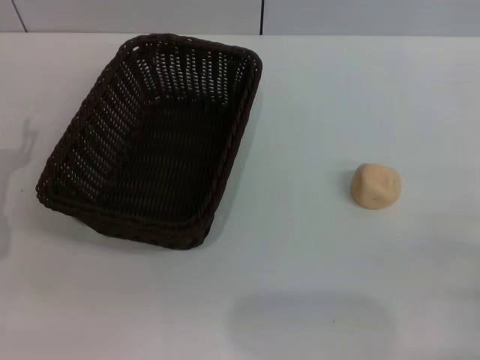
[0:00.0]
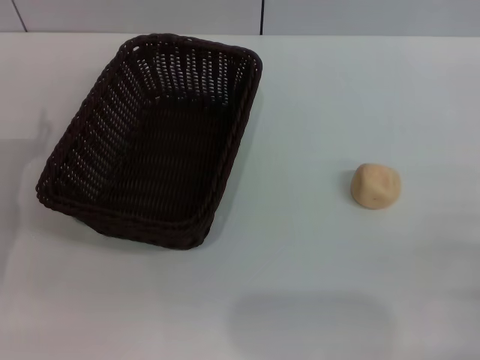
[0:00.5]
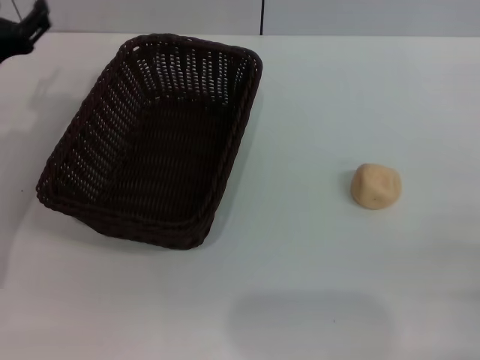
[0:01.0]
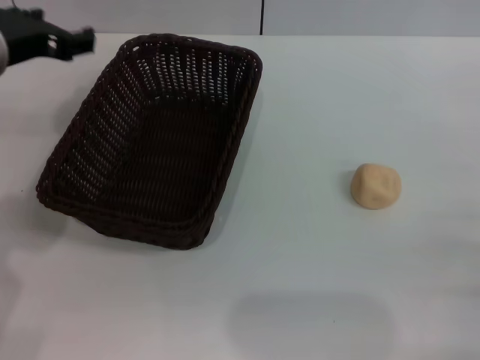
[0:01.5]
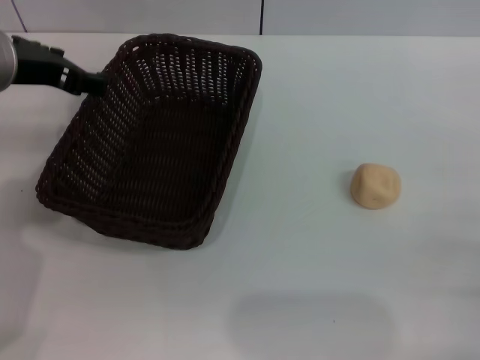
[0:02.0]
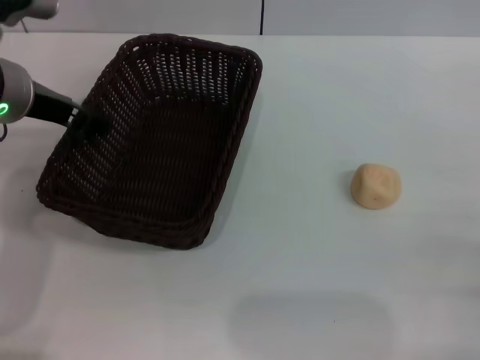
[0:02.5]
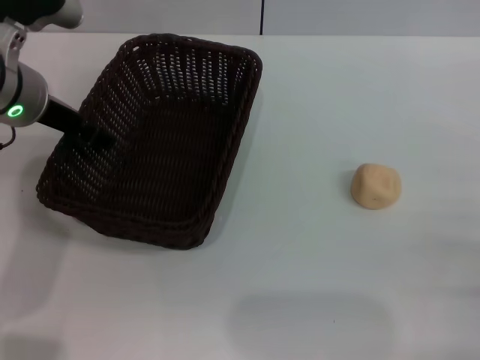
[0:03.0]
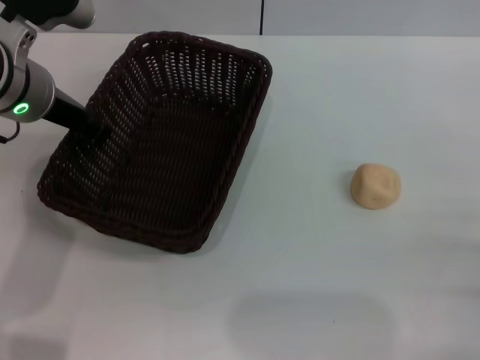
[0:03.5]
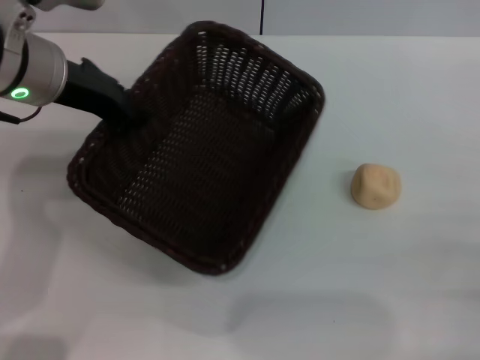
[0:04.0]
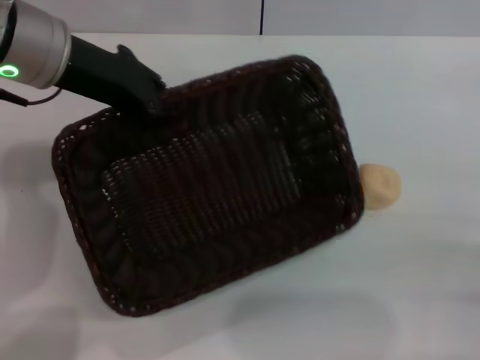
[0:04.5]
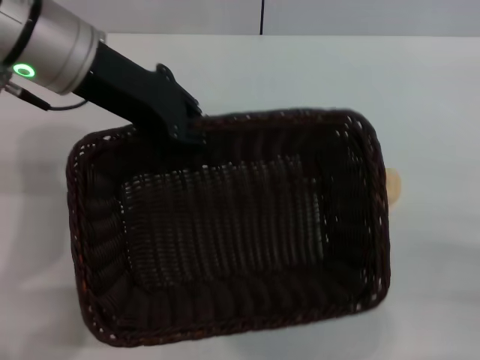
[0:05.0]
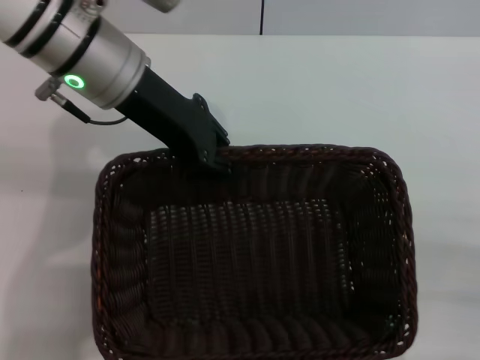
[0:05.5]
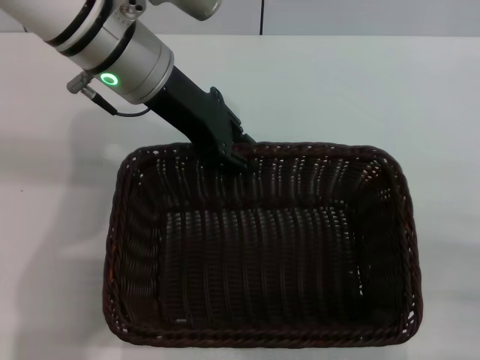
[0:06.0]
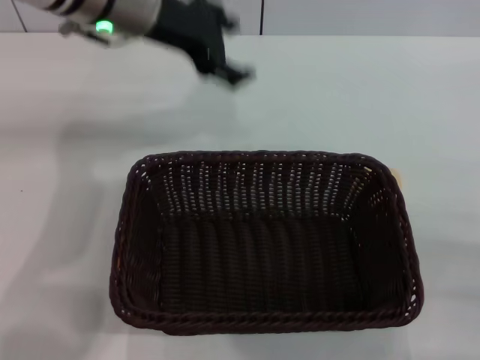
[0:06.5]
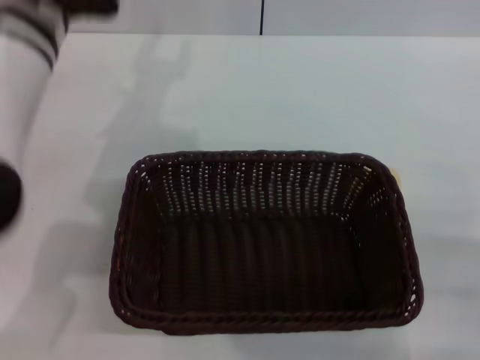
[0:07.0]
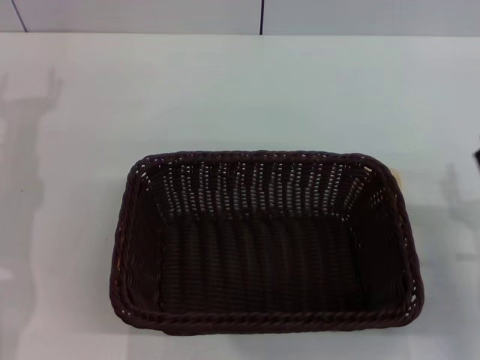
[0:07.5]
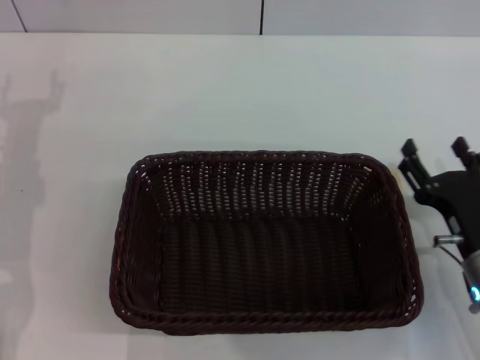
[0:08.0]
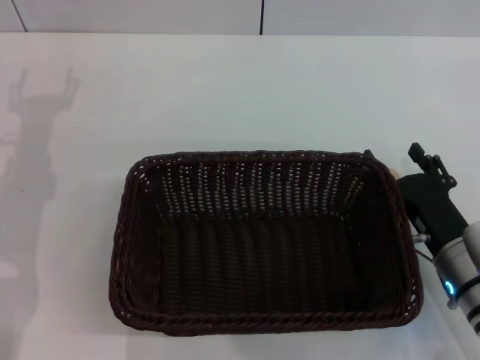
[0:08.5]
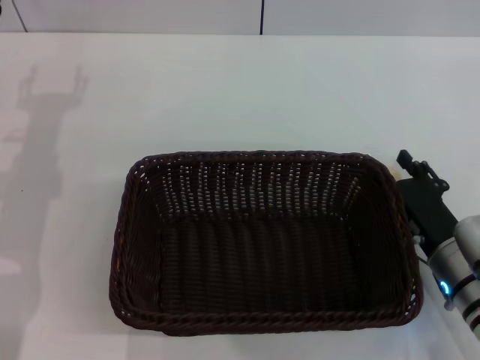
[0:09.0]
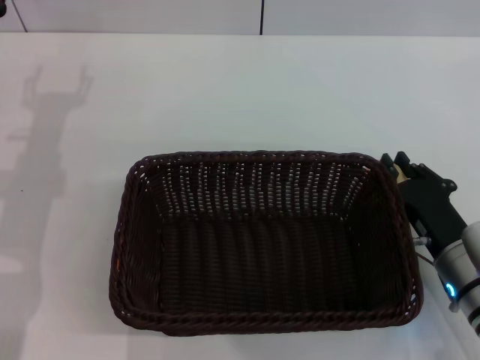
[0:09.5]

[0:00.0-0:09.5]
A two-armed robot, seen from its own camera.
Step, 0:00.0 to 0:06.0: Move the basket to the center of view with the left gripper.
0:00.0 to 0:02.0: The left gripper shifts roughly 20 cm upward, forward and to the right.
0:02.0 to 0:04.0: The left gripper closes.
0:04.0 to 0:05.5: The left gripper heads to the right, covering roughly 5 cm.
0:05.5 to 0:07.5: The left gripper goes about 20 cm to the left and downward, and opens its fingers; the right gripper goes about 5 cm forward.
0:07.5 to 0:09.5: The right gripper shifts by approximately 5 cm, and closes up.

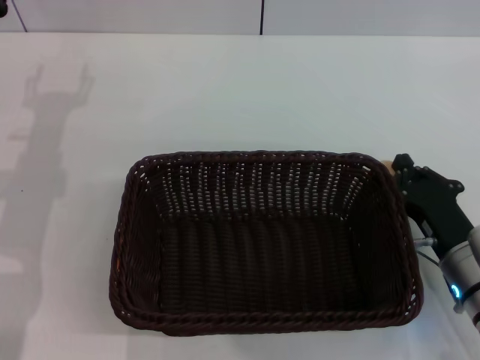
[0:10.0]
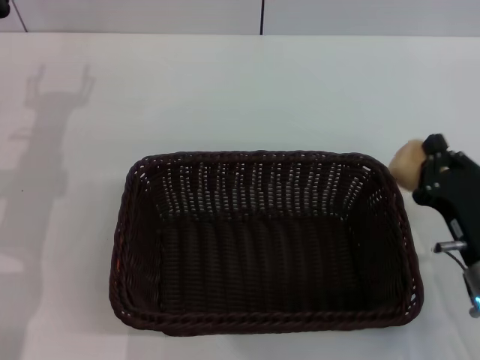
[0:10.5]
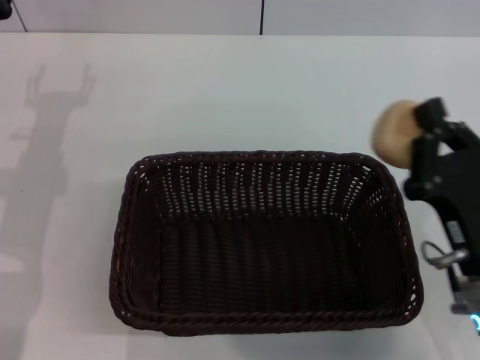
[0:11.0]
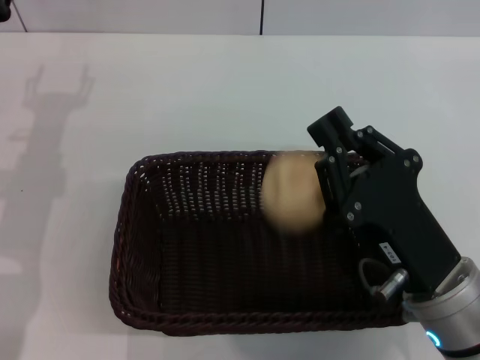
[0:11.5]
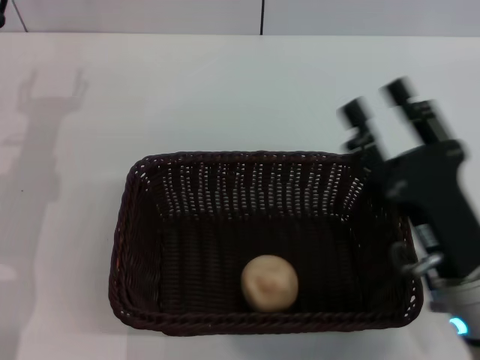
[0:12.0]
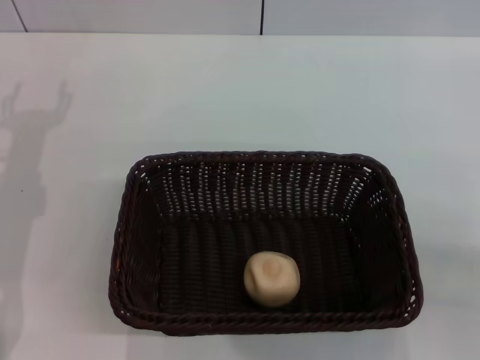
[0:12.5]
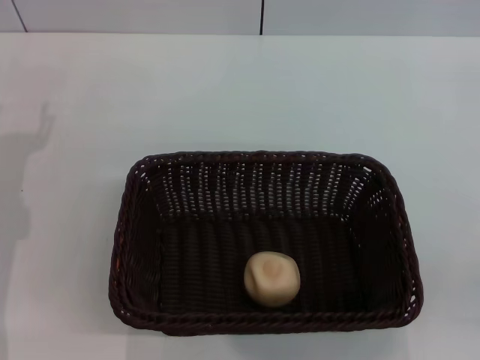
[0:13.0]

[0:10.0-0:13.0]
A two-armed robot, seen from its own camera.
Step, 0:11.0 to 0:11.5: Place the egg yolk pastry into the basket with the right gripper.
0:10.0 to 0:11.5: The right gripper is displaced upward, to the left and backward by approximately 10 cm.
0:11.5 to 0:13.0: The left gripper moves backward, some 5 cm; the right gripper travels to the right by approximately 15 cm, and opens its fingers.

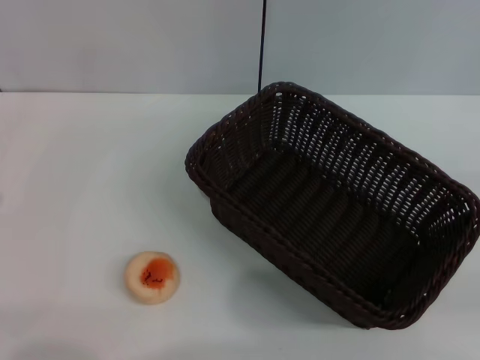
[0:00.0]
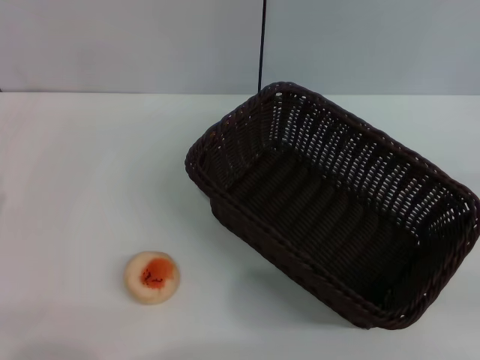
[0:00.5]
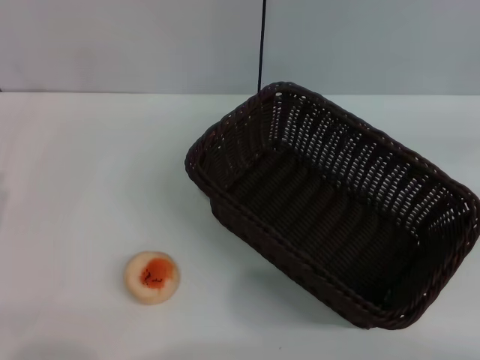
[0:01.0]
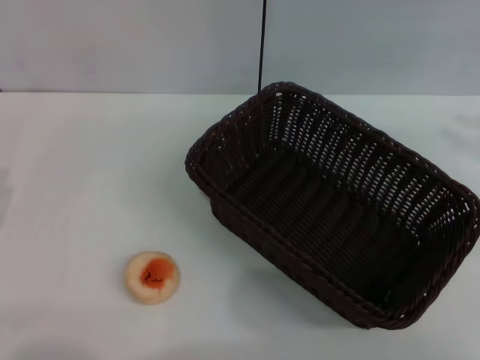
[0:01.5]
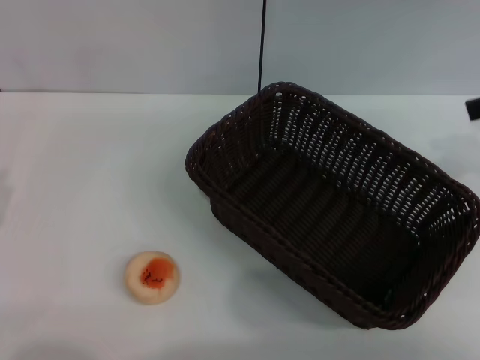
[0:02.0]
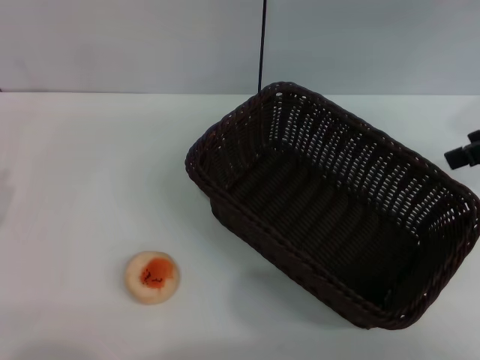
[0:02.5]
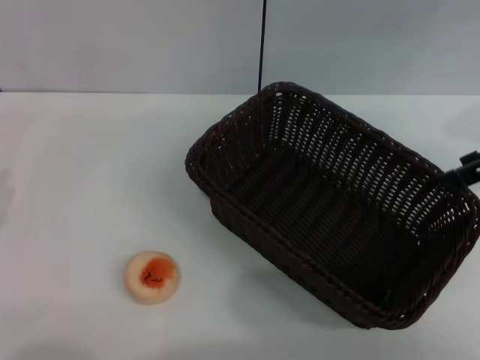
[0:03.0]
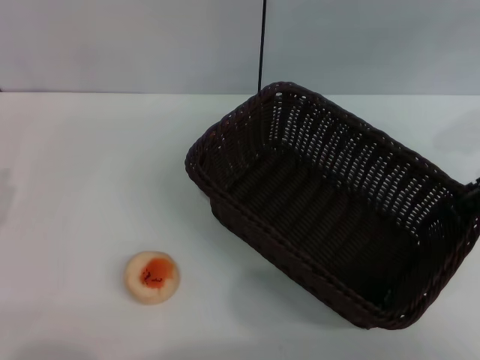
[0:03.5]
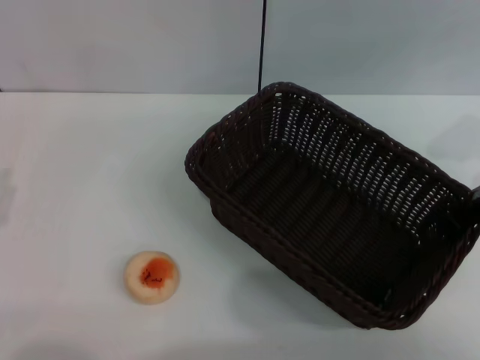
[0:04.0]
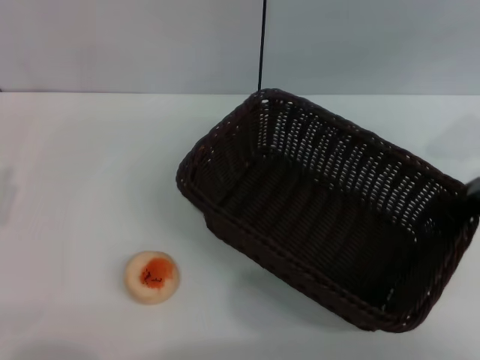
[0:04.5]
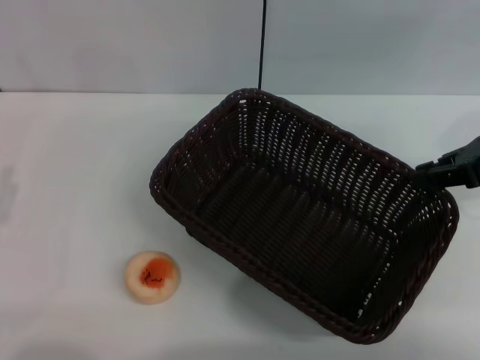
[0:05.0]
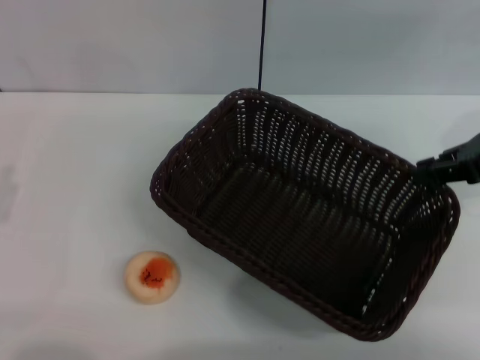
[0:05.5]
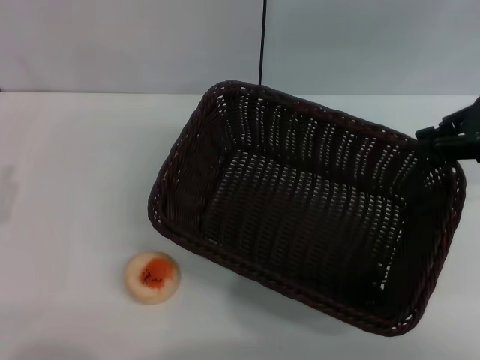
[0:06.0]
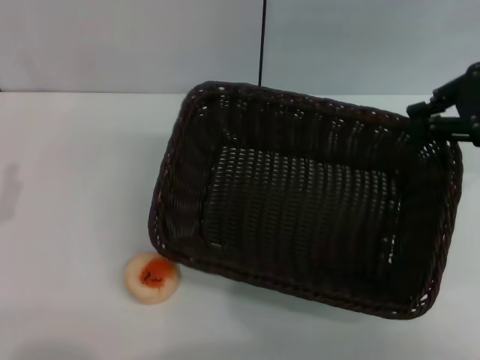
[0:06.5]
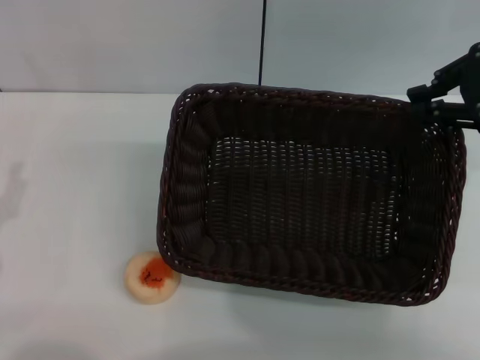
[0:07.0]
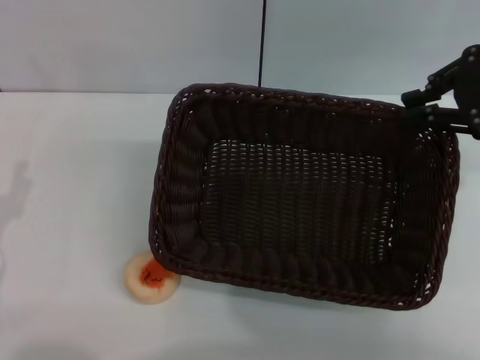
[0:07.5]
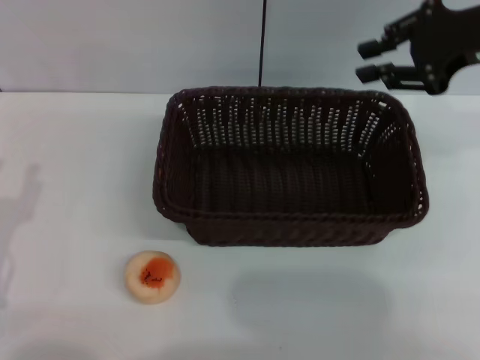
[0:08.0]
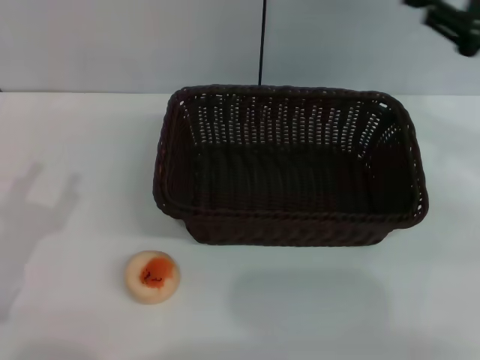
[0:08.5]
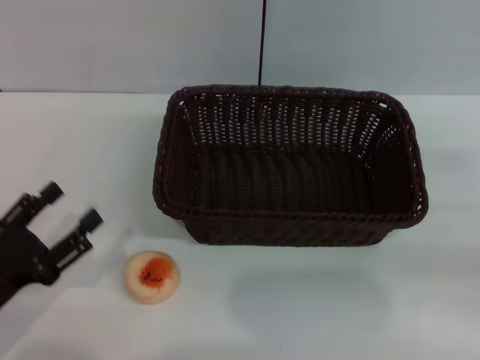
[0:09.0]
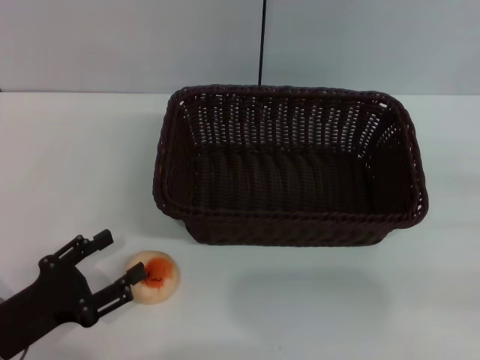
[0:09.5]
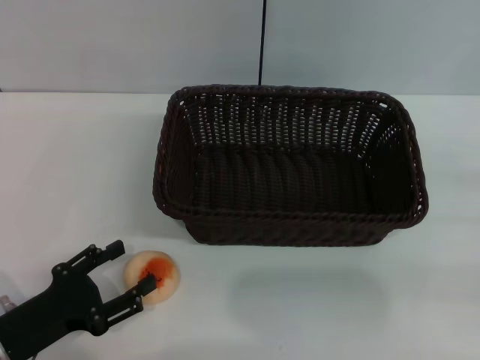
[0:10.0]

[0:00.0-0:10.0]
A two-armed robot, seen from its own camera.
Step, 0:00.0 to 0:08.0: Move the basket to the center of view with the right gripper.
0:00.0 to 0:02.0: The right gripper goes roughly 25 cm upward, forward and to the left, and opens.
0:04.0 to 0:06.0: The right gripper closes its fingers.
0:06.0 to 0:08.0: The right gripper shifts by approximately 5 cm.
0:08.0 to 0:10.0: The left gripper goes about 5 cm downward, while the right gripper moves downward, to the right and backward, some 30 cm.

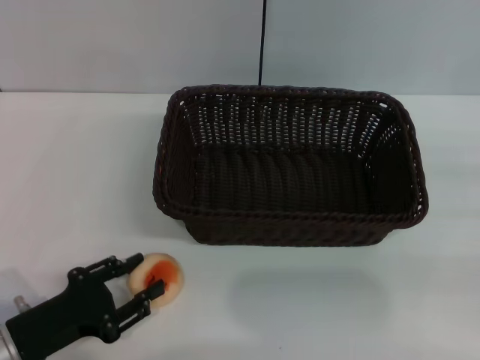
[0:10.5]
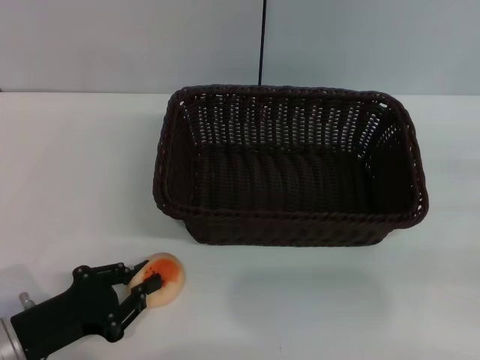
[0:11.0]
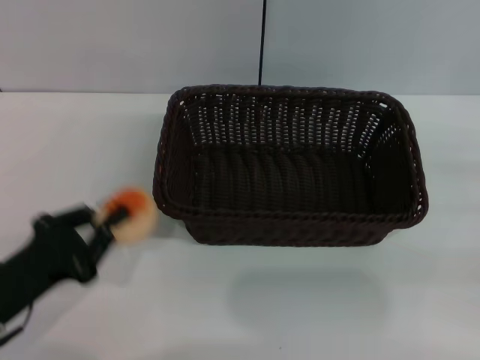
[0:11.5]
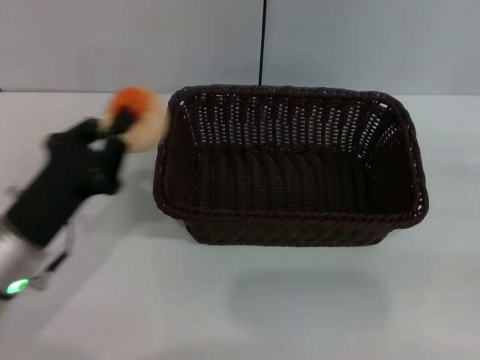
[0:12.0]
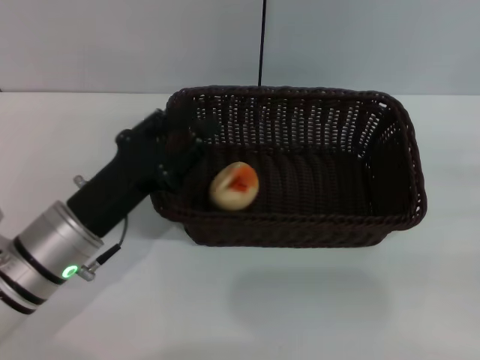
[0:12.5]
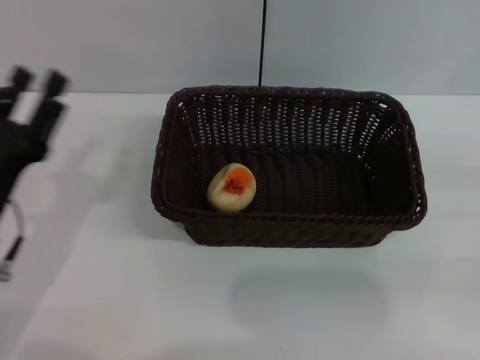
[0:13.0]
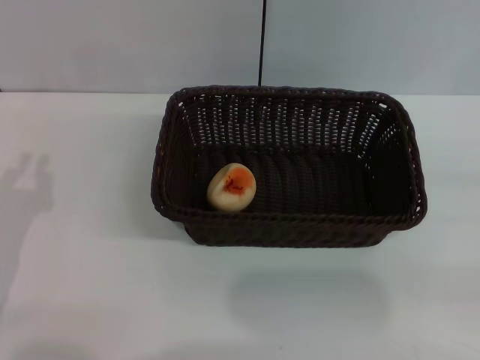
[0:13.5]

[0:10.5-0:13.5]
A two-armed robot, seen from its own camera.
Step, 0:12.0 to 0:12.5: Place the egg yolk pastry into the basket with the left gripper.
0:10.5 to 0:12.0: The left gripper goes about 10 cm forward and upward, and closes.
0:12.0 to 0:13.5: The left gripper shifts approximately 5 cm to the left, and opens.
